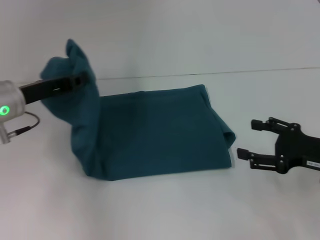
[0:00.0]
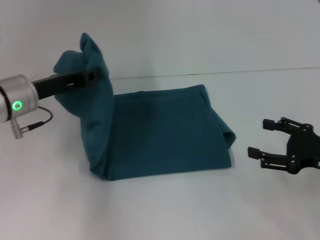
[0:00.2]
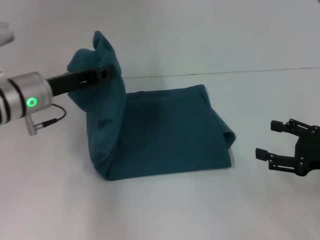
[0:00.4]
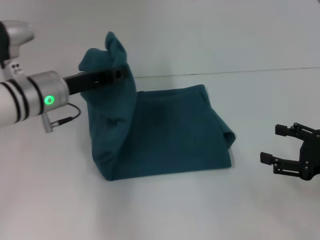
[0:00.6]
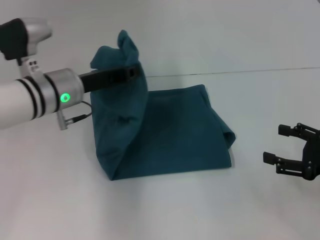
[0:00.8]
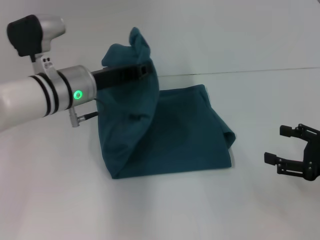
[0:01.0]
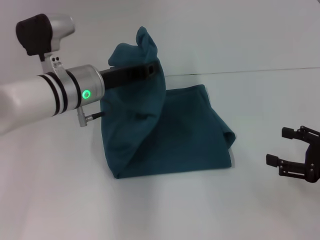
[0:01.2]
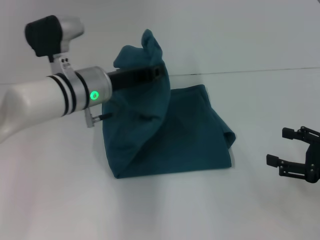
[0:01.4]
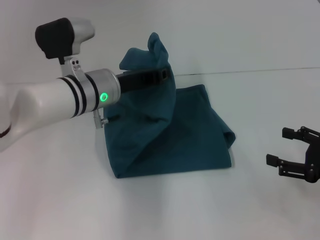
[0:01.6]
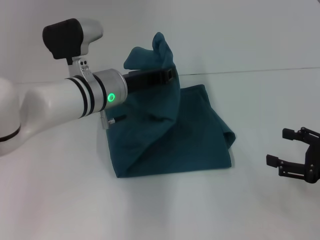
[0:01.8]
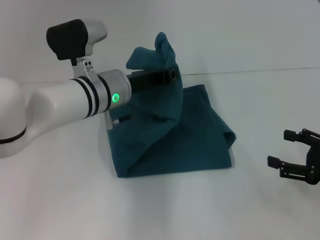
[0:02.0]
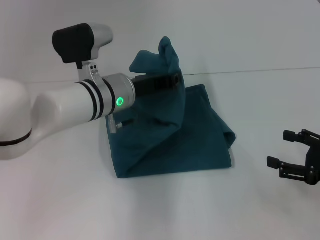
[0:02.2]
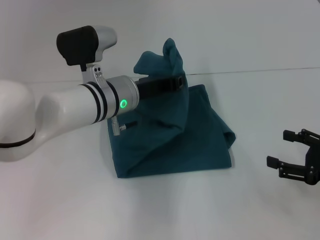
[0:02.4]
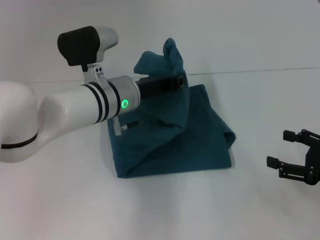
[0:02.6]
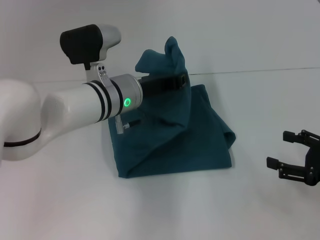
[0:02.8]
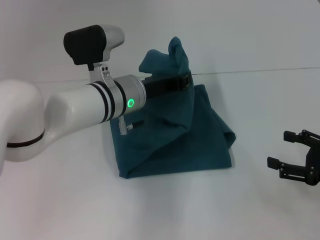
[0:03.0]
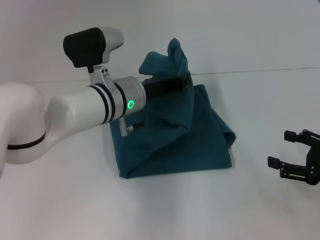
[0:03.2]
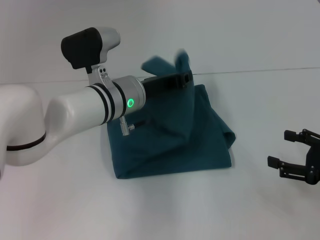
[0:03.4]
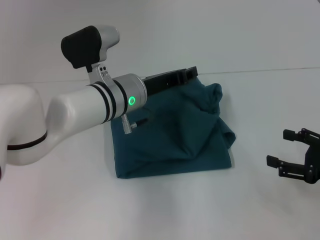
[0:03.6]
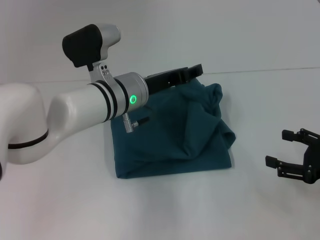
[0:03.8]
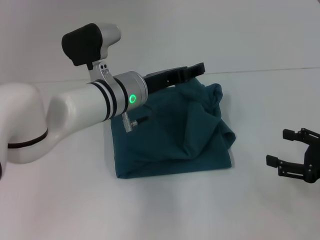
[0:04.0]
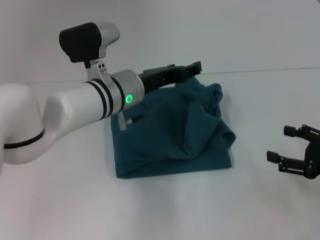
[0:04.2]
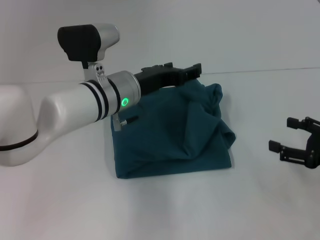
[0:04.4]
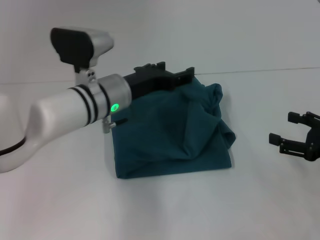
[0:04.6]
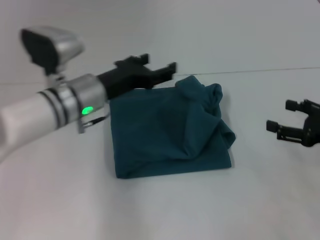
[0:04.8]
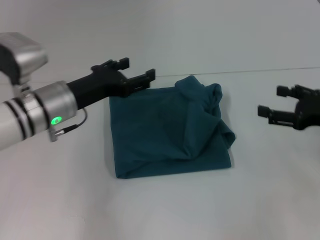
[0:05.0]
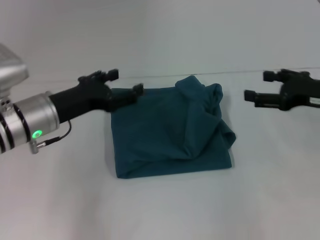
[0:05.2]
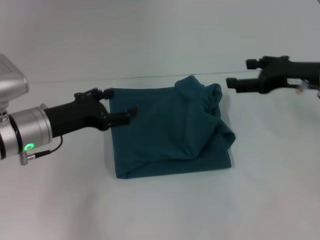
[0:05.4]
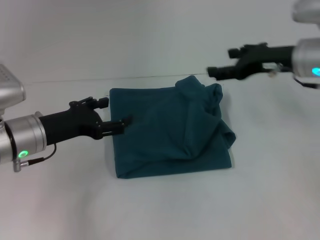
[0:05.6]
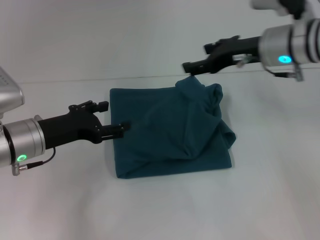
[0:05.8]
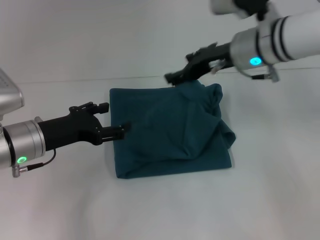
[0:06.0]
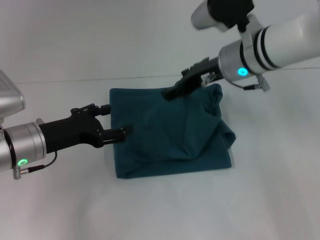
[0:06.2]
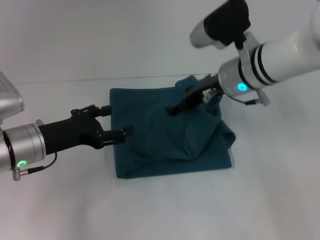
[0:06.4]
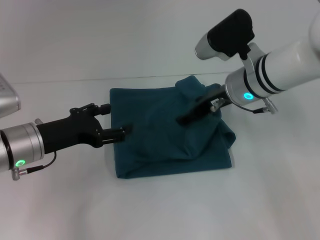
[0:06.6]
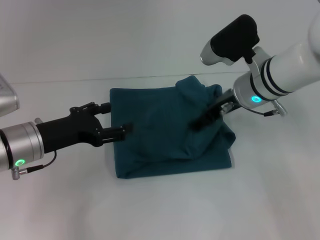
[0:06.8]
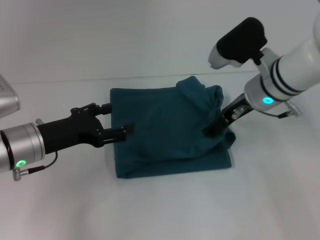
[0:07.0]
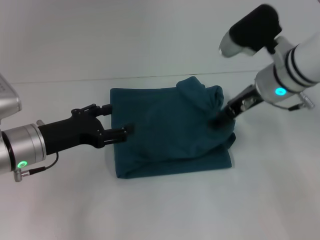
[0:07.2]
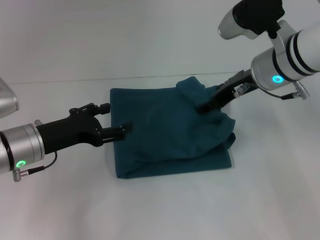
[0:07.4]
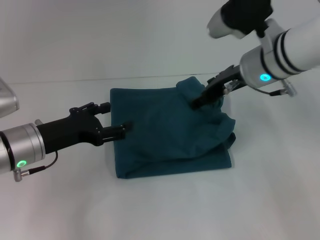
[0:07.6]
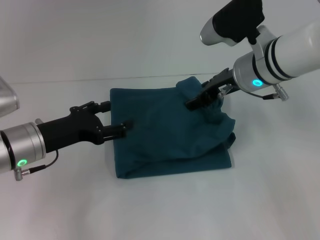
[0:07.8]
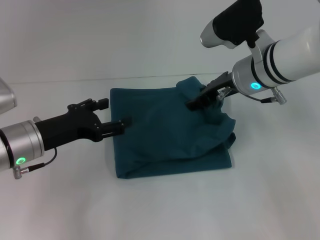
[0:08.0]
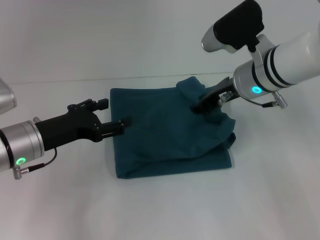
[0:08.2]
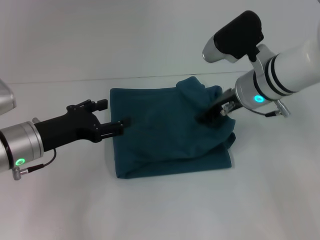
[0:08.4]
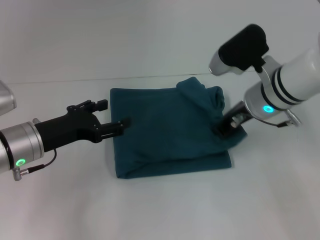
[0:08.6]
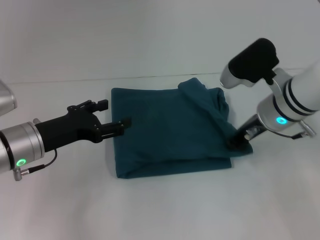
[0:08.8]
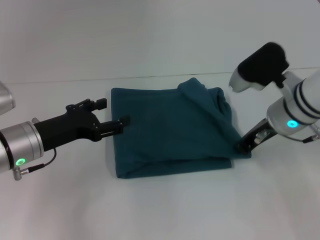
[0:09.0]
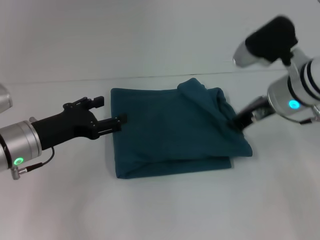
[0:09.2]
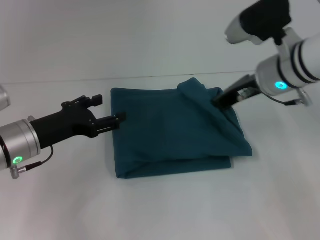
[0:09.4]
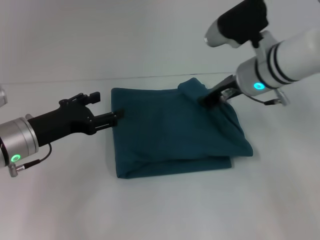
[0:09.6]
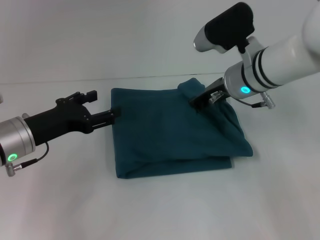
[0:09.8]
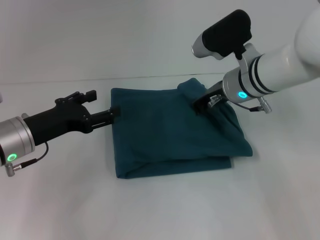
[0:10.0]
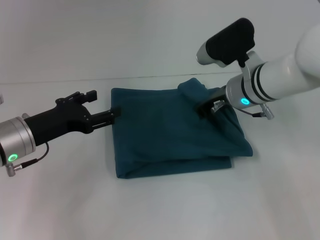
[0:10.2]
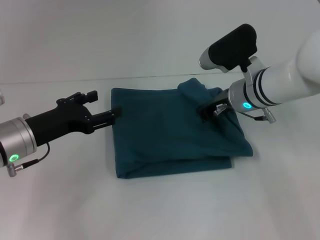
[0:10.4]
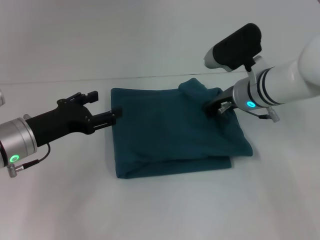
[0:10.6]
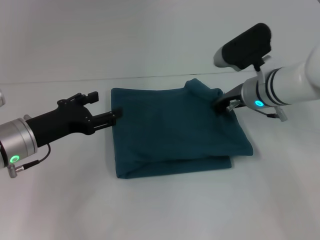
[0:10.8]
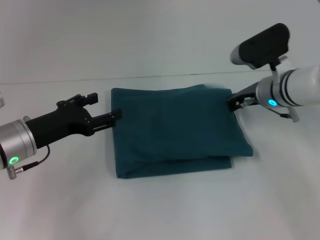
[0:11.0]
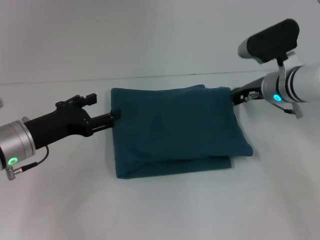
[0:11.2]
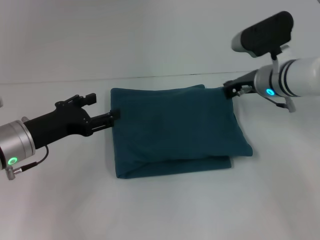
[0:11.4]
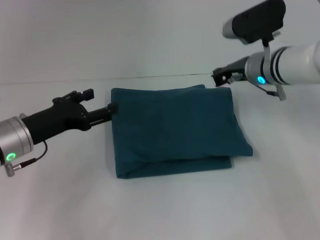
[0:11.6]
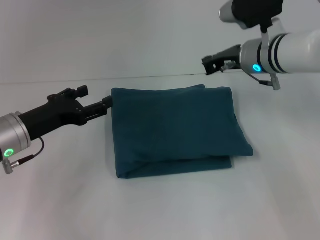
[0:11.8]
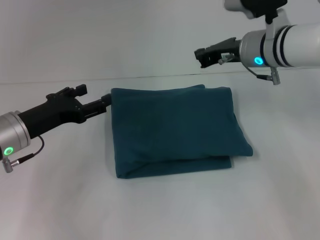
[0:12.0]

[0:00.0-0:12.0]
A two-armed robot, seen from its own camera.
Step, 0:00.0 to 0:05.6: Fold the clothes to the left.
0:00.0 to 0:01.6: The left gripper moves to the right, some 15 cm.
0:01.6 to 0:03.0: The grippers stay close to where they were, moving slightly.
0:03.0 to 0:04.4: The left gripper opens up.
0:04.4 to 0:06.0: The left gripper goes about 15 cm to the left. The right gripper shifts approximately 30 cm to the left, forward and upward.
0:07.6 to 0:09.0: The right gripper moves downward, approximately 5 cm, and closes.
0:09.0 to 0:10.4: The right gripper changes place by some 5 cm.
0:10.4 to 0:12.0: The right gripper heads upward, covering approximately 5 cm.

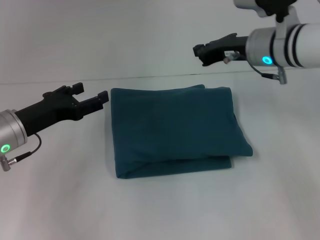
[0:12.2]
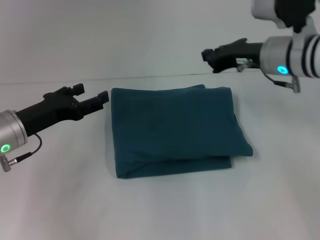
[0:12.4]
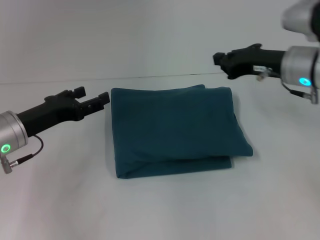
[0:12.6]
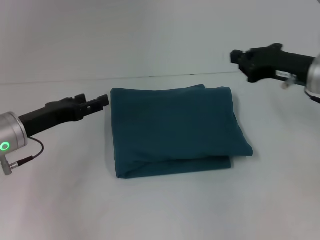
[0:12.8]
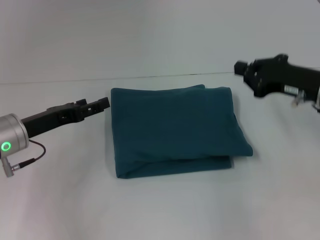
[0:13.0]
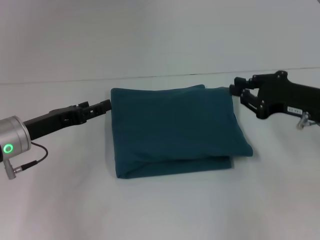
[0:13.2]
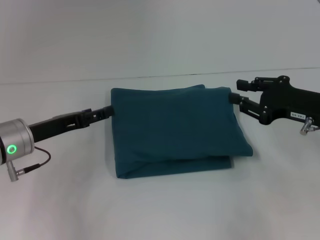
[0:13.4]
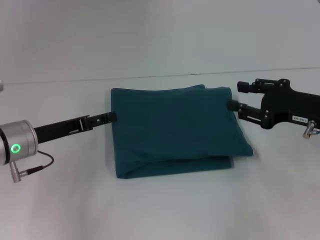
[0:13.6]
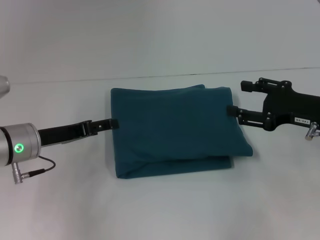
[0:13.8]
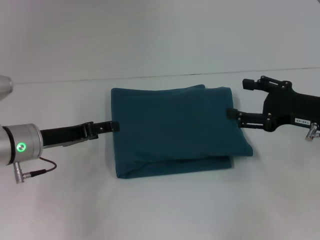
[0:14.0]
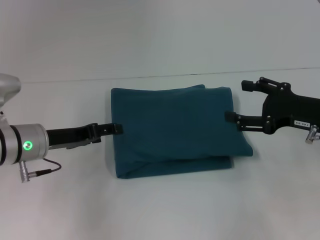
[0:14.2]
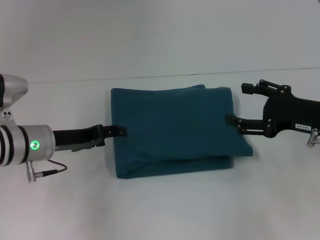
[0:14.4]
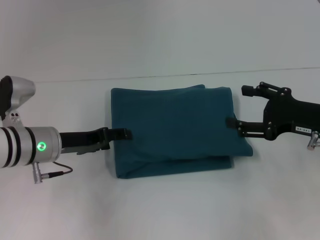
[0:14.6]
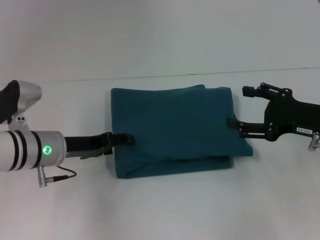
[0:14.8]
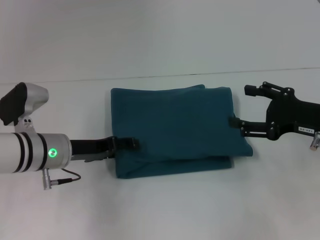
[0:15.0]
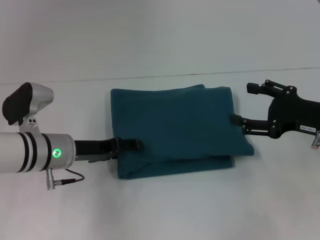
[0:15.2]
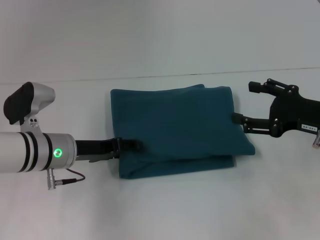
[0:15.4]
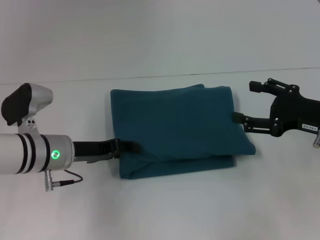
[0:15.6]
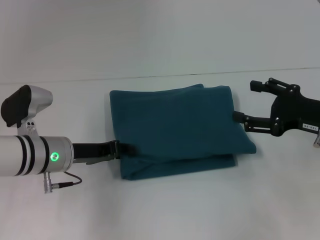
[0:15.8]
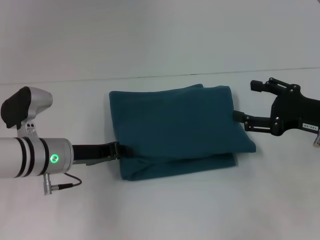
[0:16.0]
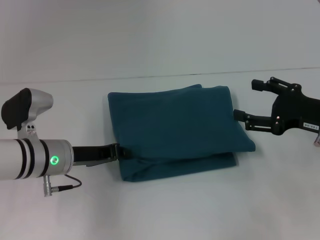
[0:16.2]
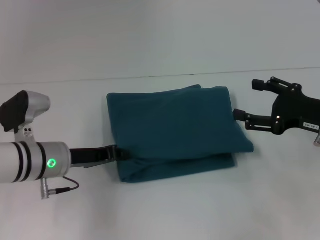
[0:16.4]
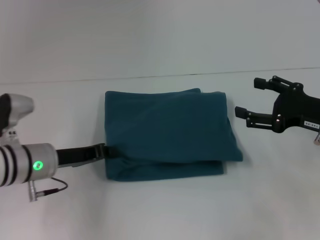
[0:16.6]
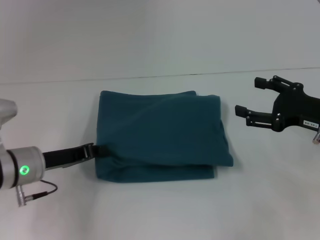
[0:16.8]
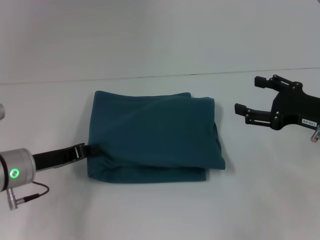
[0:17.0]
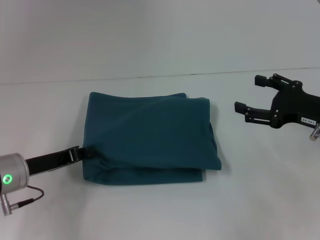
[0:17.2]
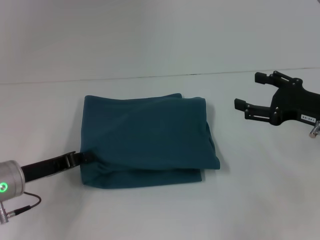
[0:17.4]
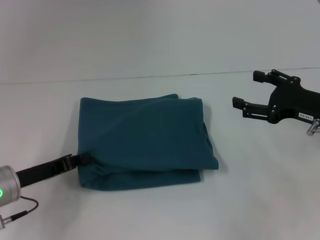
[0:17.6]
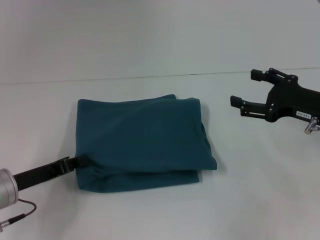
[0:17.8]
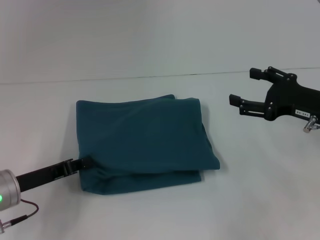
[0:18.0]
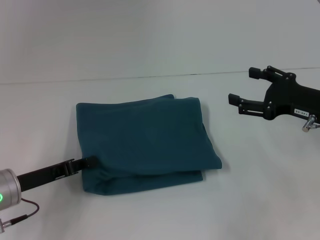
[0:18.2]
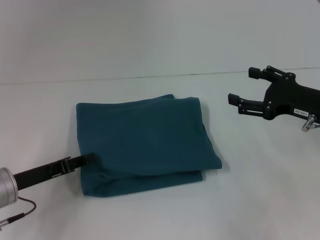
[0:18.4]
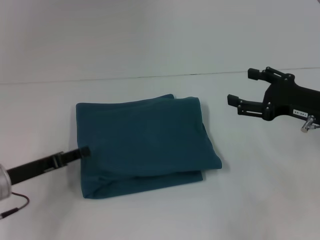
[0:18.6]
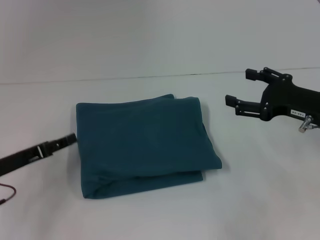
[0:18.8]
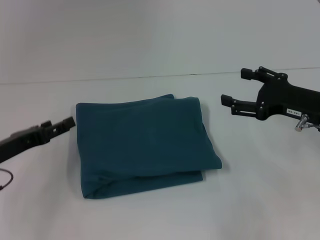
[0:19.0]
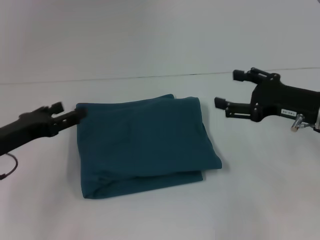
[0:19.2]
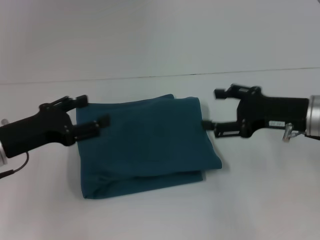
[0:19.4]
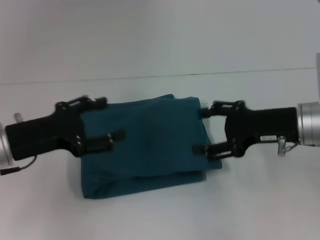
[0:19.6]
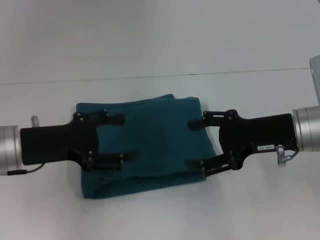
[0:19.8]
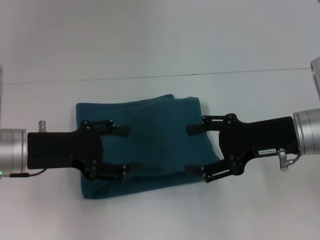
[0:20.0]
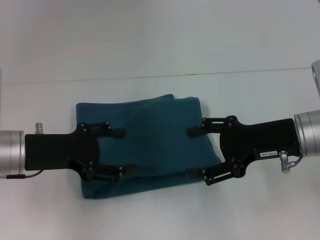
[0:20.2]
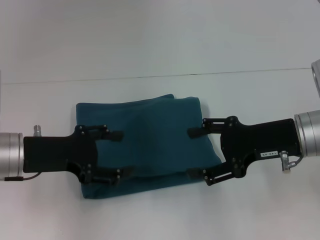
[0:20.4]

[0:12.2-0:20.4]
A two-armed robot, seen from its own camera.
0:12.2 to 0:13.8: The right gripper goes roughly 15 cm backward, to the right and downward, and opens up.
0:13.8 to 0:15.4: The left gripper shifts by approximately 5 cm. The right gripper opens.
0:15.4 to 0:17.2: The left gripper is displaced to the left by some 5 cm, and closes its fingers.
0:17.2 to 0:18.8: The left gripper opens up.
0:18.8 to 0:20.4: The right gripper heads to the left, covering about 5 cm. The left gripper travels upward and to the right by roughly 10 cm.

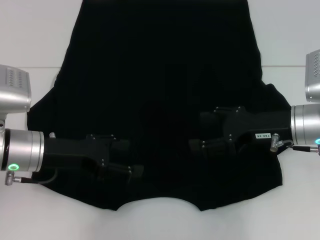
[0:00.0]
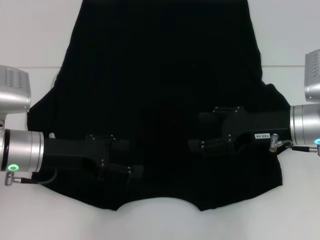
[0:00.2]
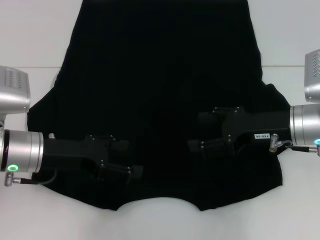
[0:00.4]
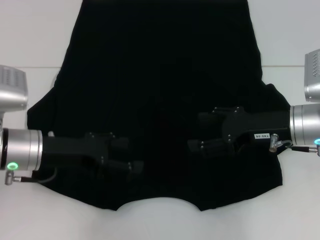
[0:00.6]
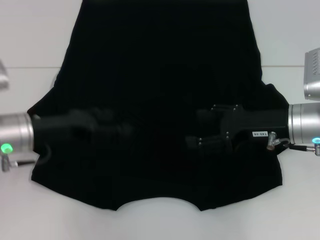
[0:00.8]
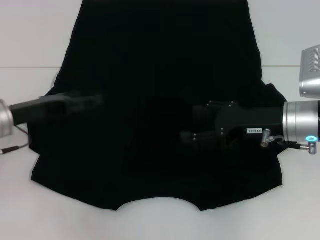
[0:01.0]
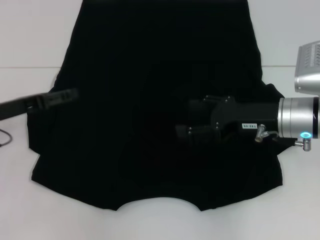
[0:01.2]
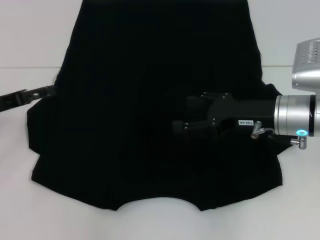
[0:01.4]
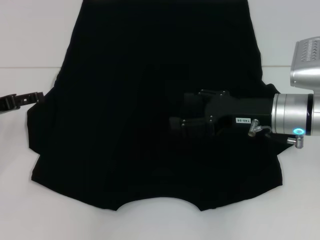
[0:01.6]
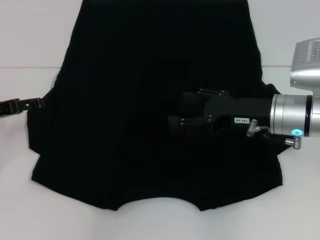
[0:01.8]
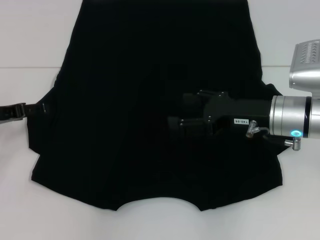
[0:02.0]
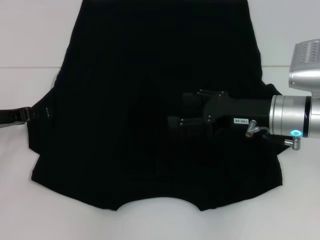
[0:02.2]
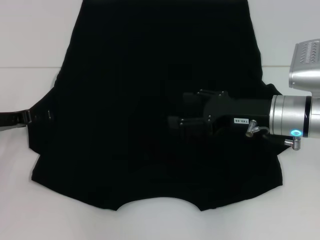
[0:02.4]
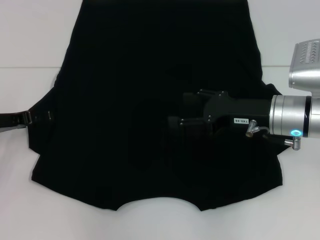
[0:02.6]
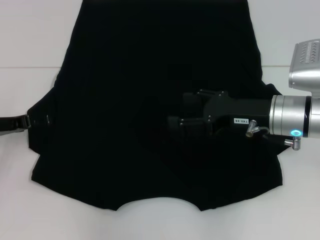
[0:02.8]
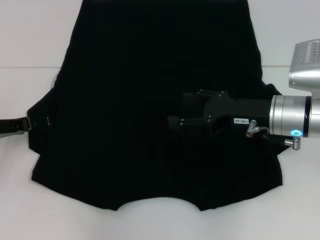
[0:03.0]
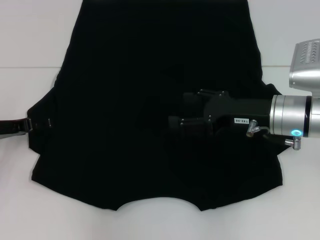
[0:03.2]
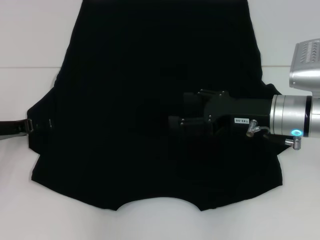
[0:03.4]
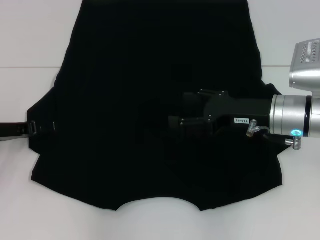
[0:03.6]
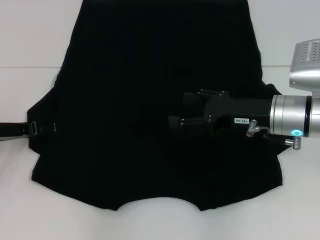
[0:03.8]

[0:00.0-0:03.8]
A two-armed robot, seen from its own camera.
0:00.0 to 0:01.2: The left gripper is displaced to the left by roughly 10 cm.
0:02.6 to 0:03.8: Neither gripper changes place.
